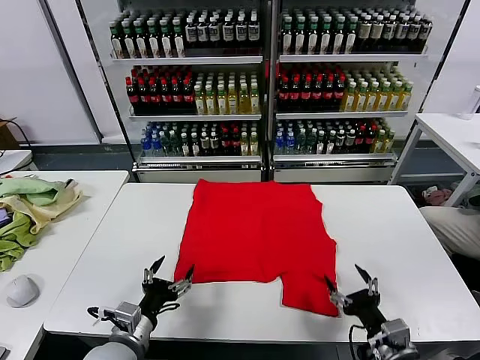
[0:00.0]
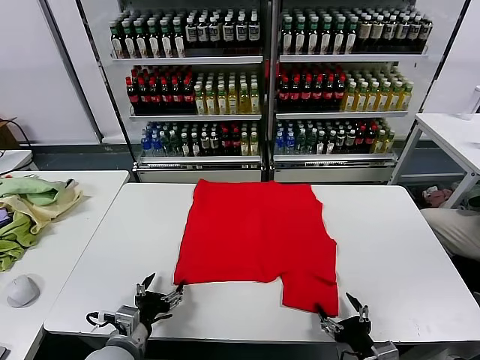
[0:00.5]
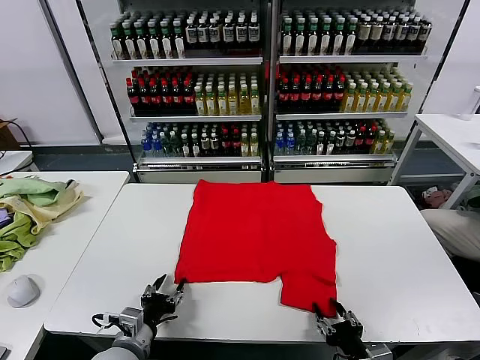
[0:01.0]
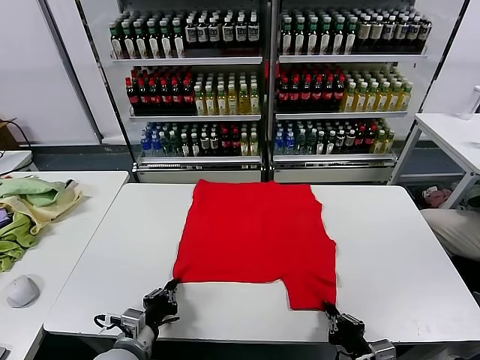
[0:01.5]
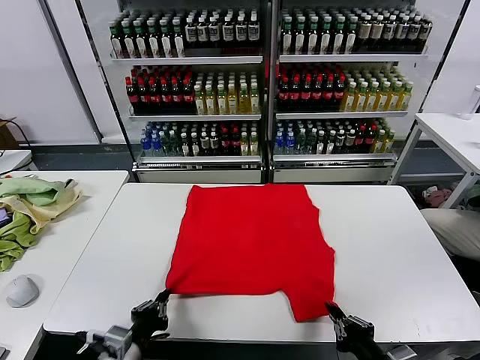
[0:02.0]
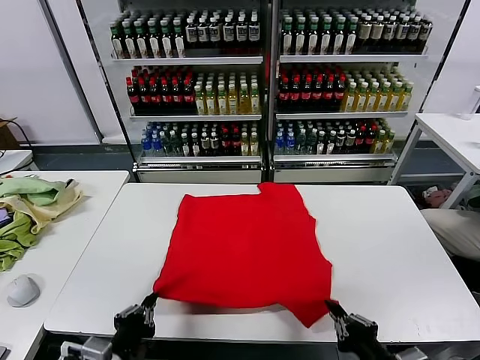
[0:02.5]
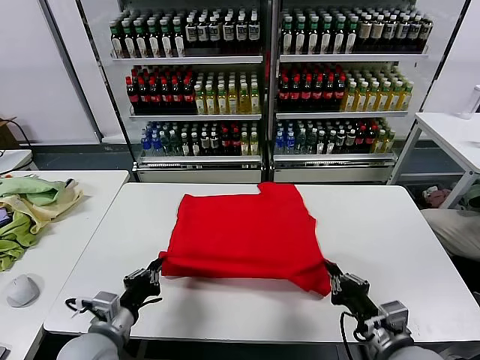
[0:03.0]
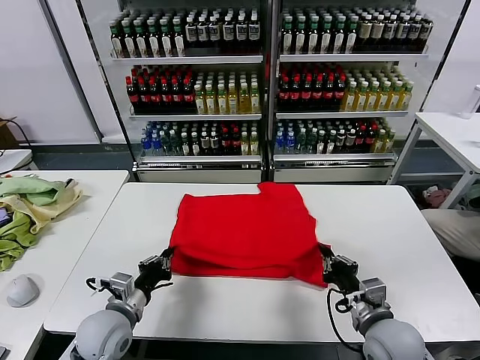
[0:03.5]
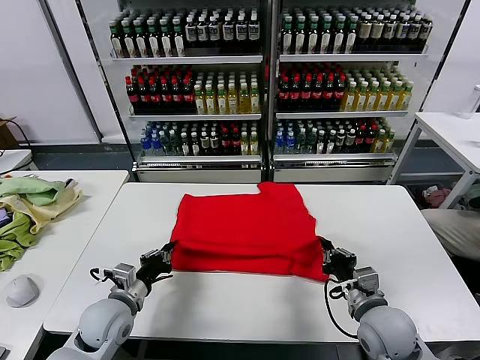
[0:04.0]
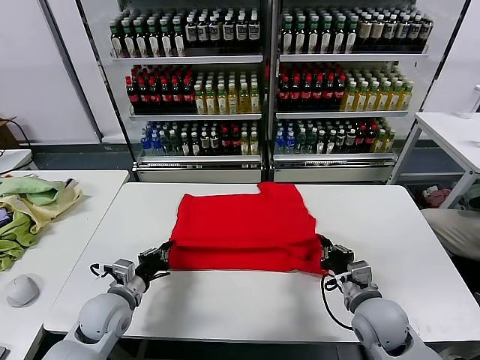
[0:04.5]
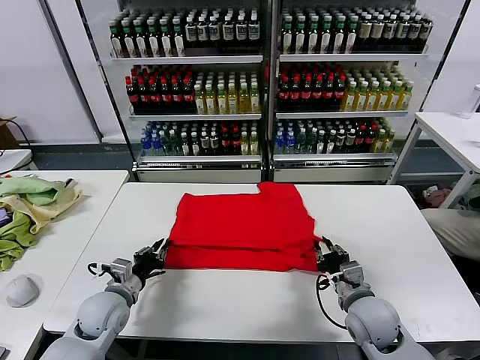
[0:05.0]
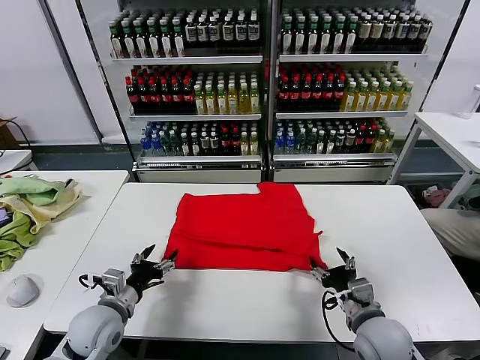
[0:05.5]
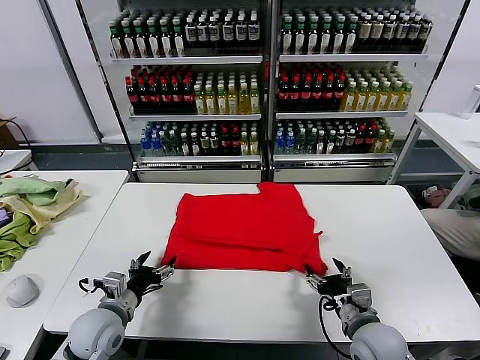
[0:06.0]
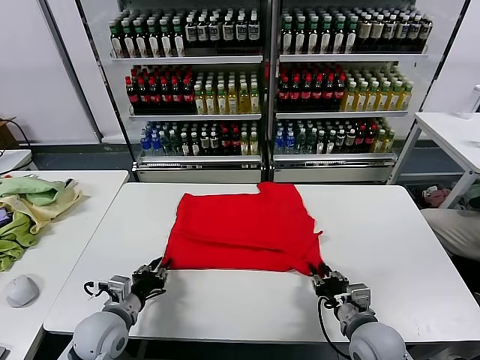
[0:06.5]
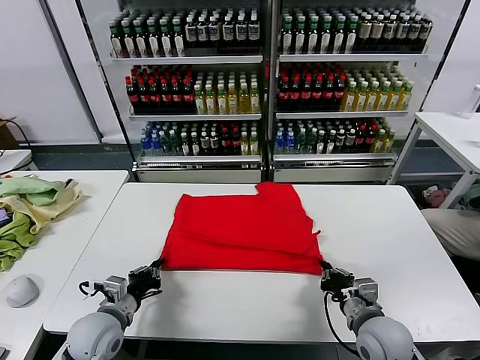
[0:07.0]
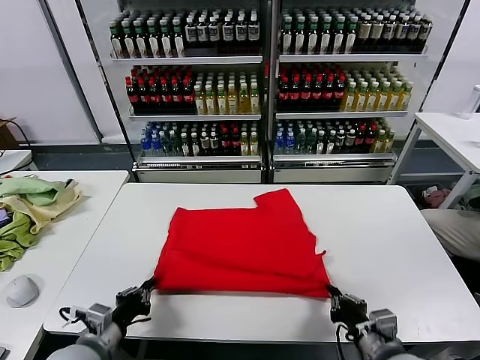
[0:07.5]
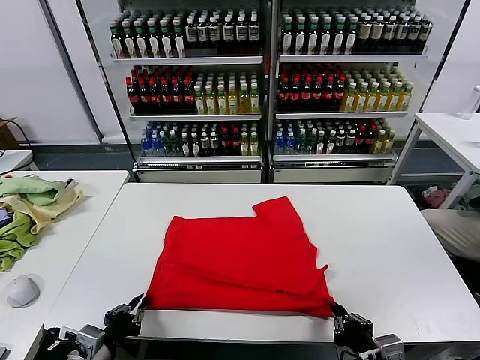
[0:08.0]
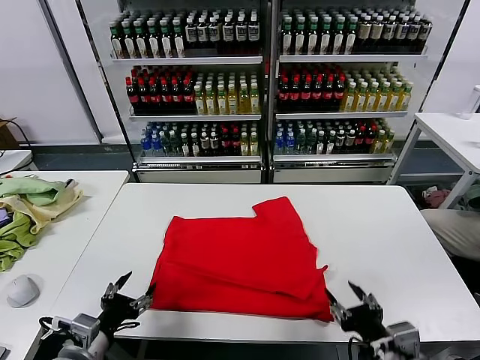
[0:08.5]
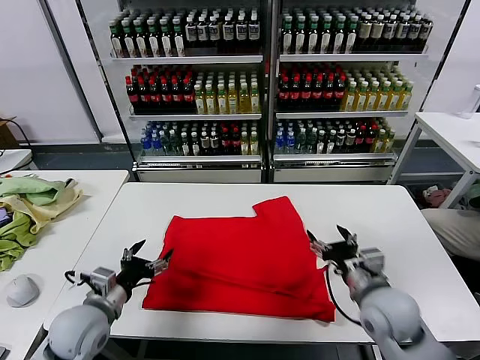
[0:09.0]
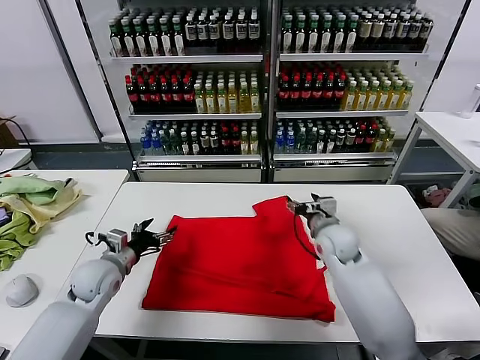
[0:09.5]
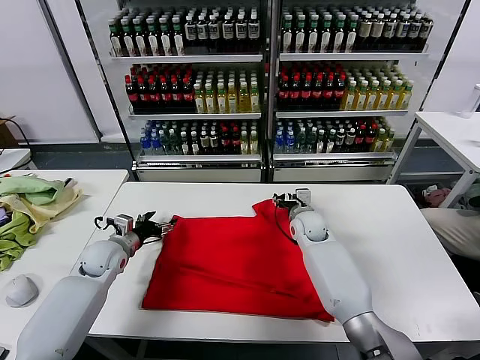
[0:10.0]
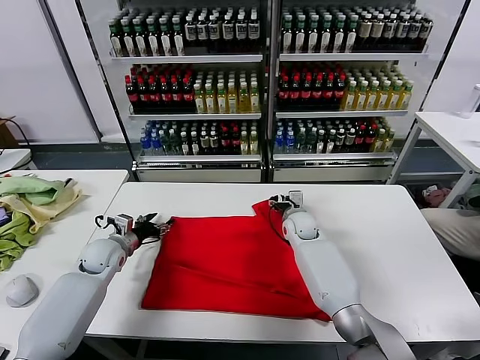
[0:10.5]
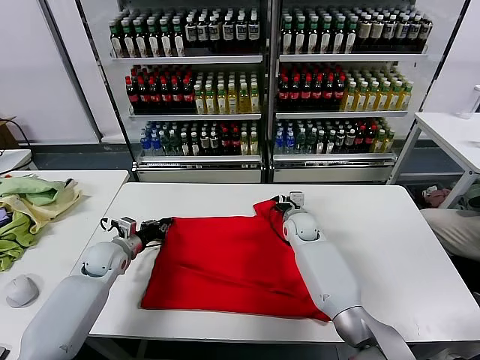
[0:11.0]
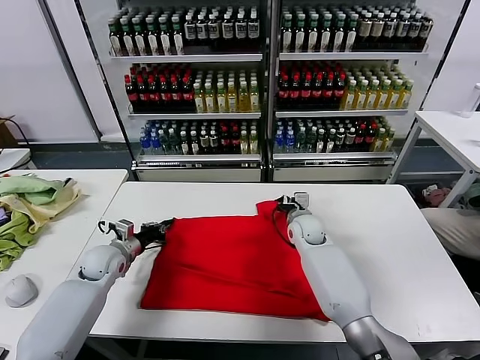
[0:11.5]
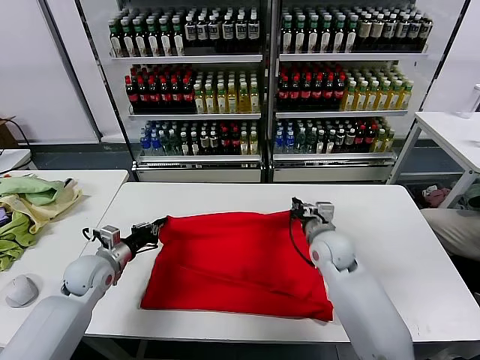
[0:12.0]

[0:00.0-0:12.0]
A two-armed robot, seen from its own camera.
Task of the whole recording: fold and organize the clothes.
Step, 0:00.0 to 0:01.5: use both grippers simultaneously to clamp the lower edge of the clothing fabric.
Step, 0:02.0 to 0:05.0: use both grippers to drag the lower edge of the fabric forward and fold it over the upper edge.
Step, 0:05.5 to 0:08.0: Drag the clothes downward with both gripper.
Step, 0:08.5 to 0:11.0: use both grippers simultaneously to clamp the upper edge of the clothing fabric.
0:02.0 to 0:04.0: Both grippers move forward, roughly 15 cm.
0:04.0 to 0:06.0: The right gripper opens its fingers. The left gripper opens.
0:06.0 to 0:08.0: The two grippers go approximately 10 cm backward. The left gripper closes up. Meanwhile the right gripper closes up.
0:08.0 to 0:10.0: Both grippers travel together forward, about 35 cm. The right gripper opens, while the left gripper opens.
0:10.0 to 0:12.0: The right gripper heads backward, covering approximately 15 cm, and closes its fingers. The left gripper heads backward, covering approximately 5 cm, and closes up.

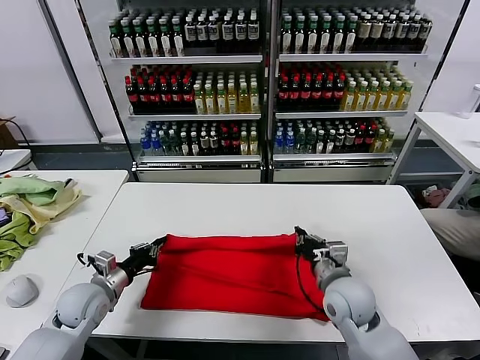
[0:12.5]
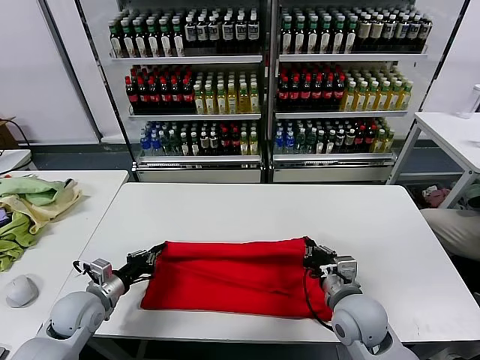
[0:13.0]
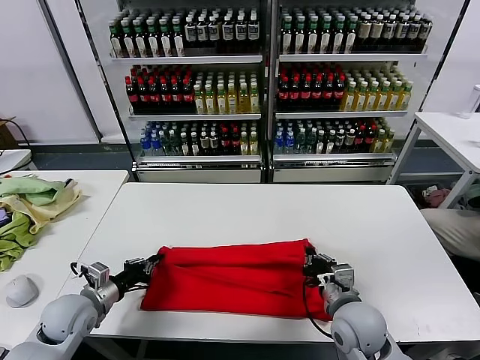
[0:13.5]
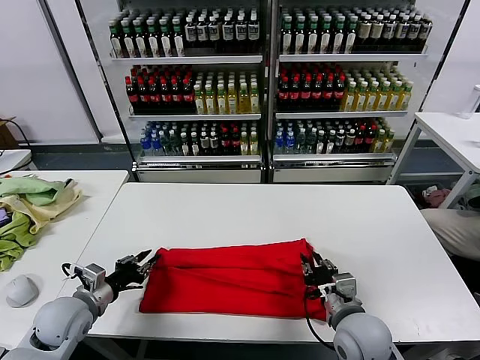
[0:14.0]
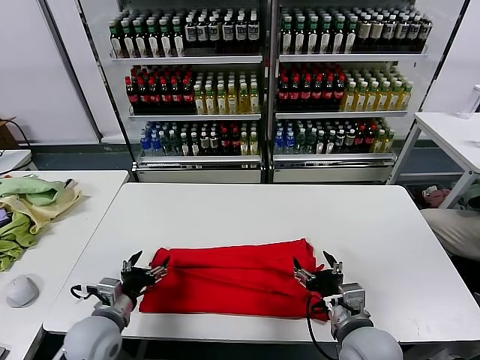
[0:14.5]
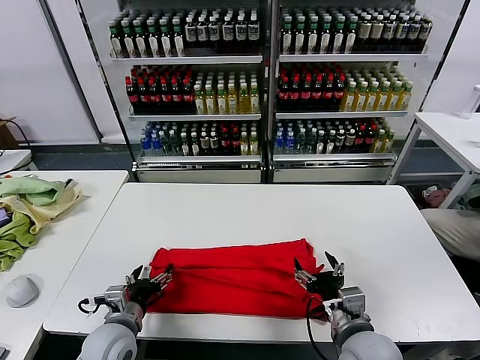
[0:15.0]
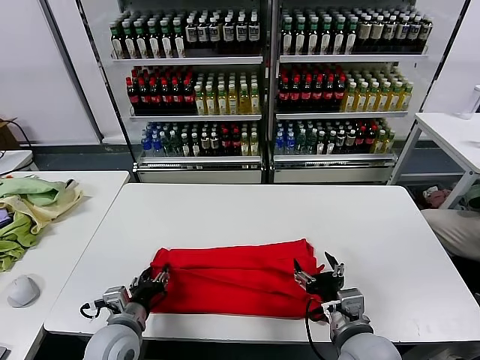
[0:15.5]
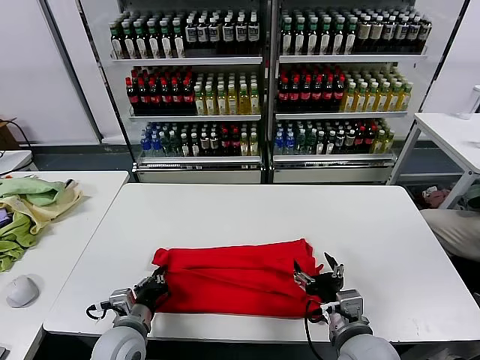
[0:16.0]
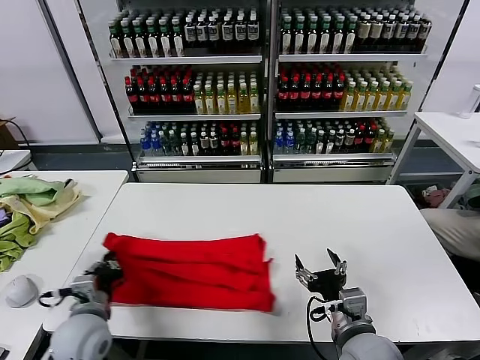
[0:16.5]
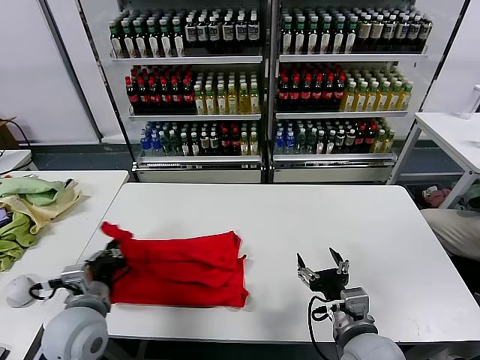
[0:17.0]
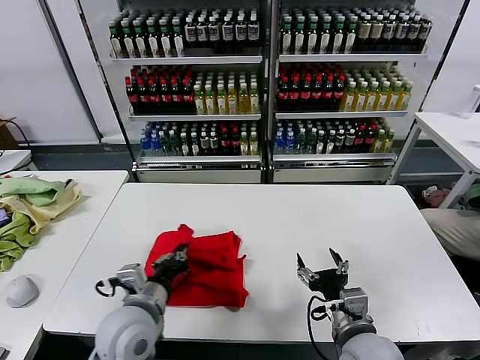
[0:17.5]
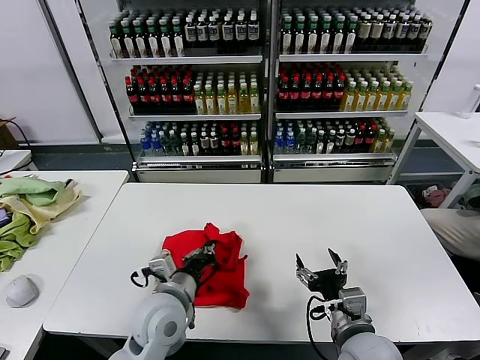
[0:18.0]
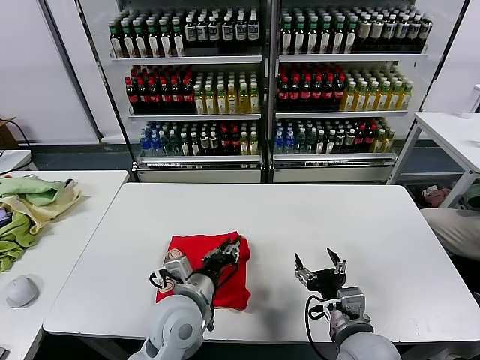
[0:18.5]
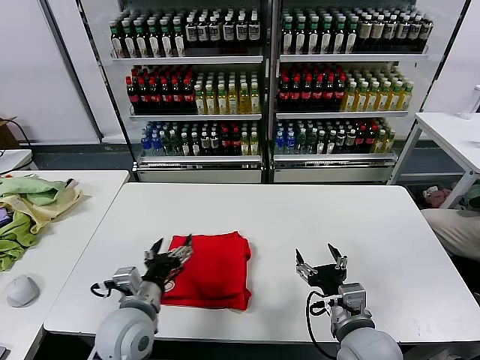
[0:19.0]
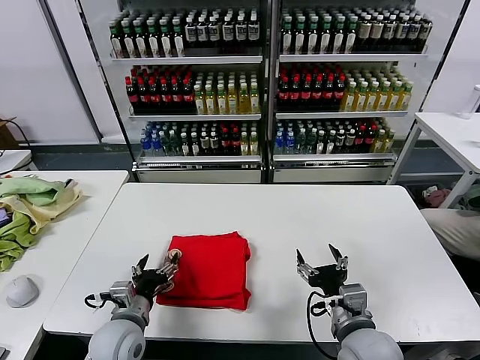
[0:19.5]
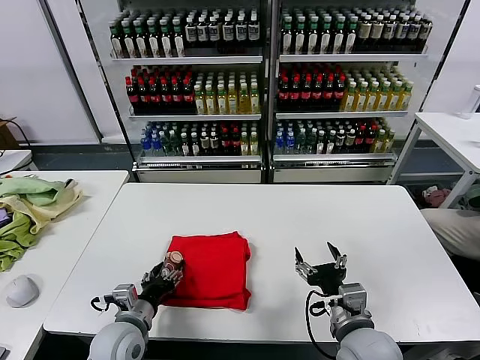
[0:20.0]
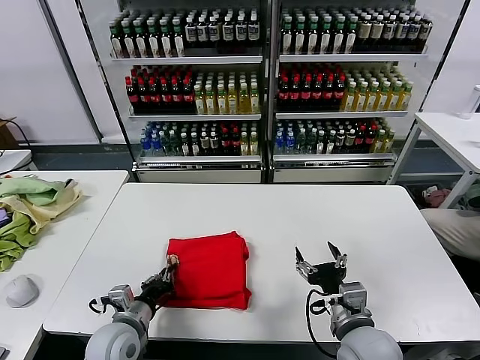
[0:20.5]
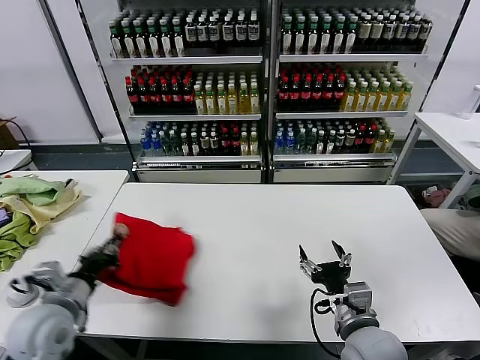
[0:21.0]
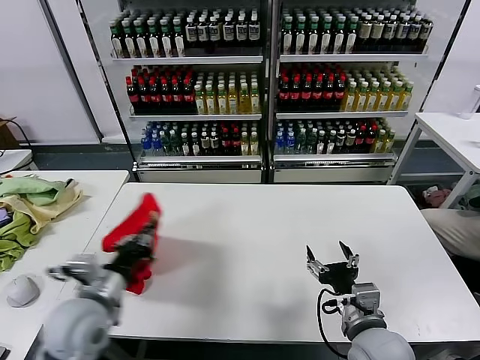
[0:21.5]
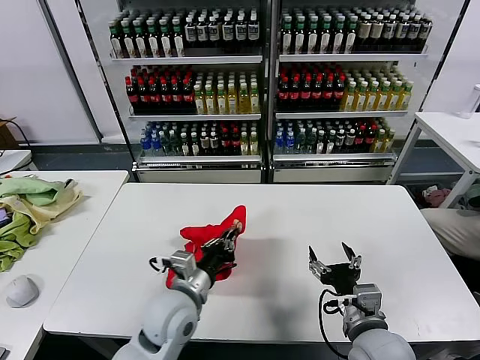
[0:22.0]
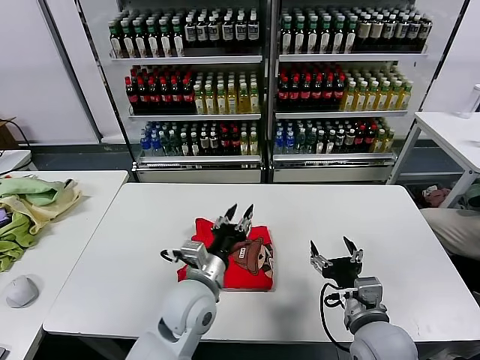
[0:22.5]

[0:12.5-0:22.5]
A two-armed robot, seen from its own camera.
Task of the whole recording: fold and organize the clothes.
Step, 0:12.5 to 0:14.0: use both grippers to drag the upper edge of the fabric backward and fold it over the lower edge.
Step, 0:14.5 to 0:15.5: use the left gripper to clamp the left edge of the fabric.
Step, 0:16.5 to 0:18.5: use the left gripper to drag the left edge of the fabric to the left and folds it over the right edge.
Step, 0:19.0 to 0:22.5: Flip the folded clothes over with left gripper.
0:12.5 to 0:14.5: The right gripper moves backward, some 10 cm, and opens its fingers. Meanwhile the left gripper goes about 10 cm backward and to the right, and opens.
0:14.5 to 0:16.5: The left gripper closes.
0:16.5 to 0:18.5: The left gripper travels to the right by some 20 cm, and opens.
0:18.5 to 0:20.5: The left gripper moves to the left and downward, roughly 15 cm, and opens and closes again.
0:20.5 to 0:22.5: The left gripper goes approximately 20 cm to the right and upward.

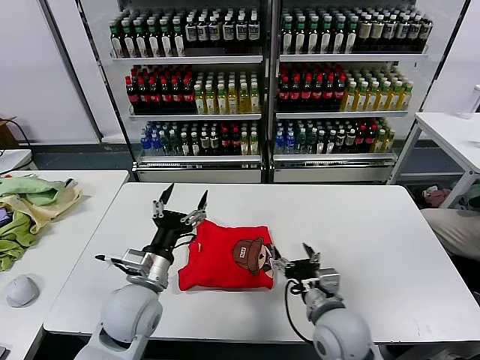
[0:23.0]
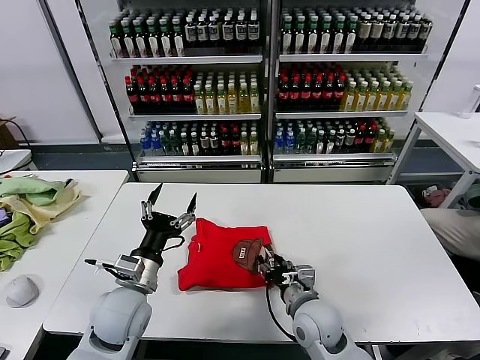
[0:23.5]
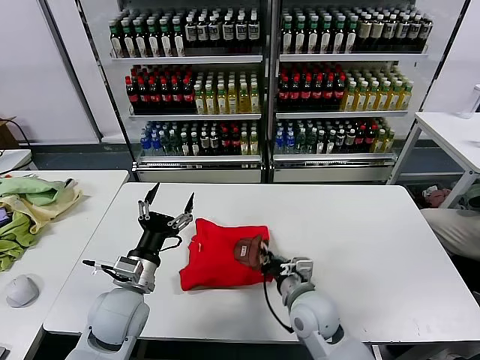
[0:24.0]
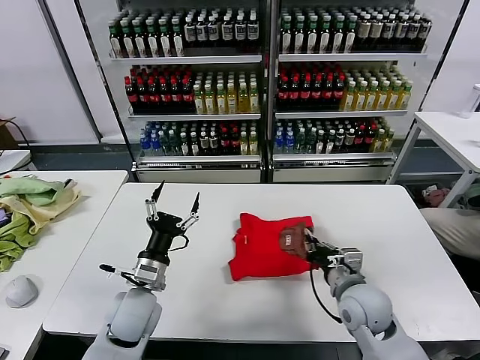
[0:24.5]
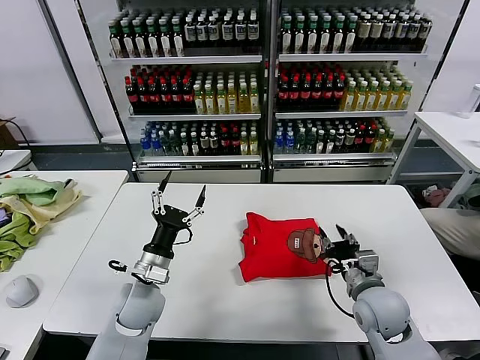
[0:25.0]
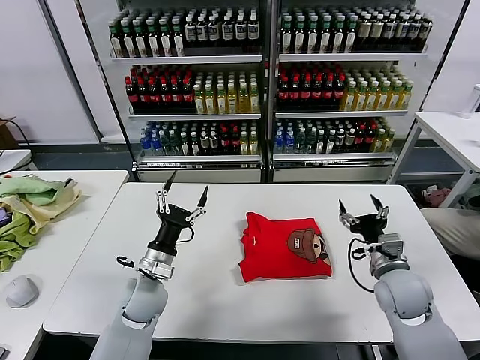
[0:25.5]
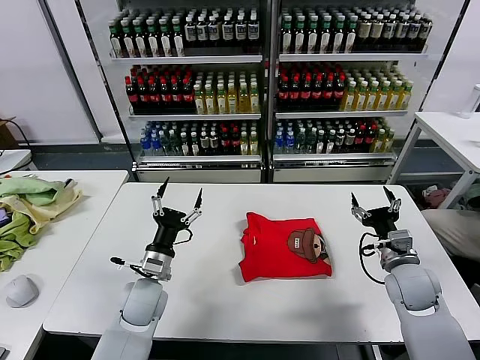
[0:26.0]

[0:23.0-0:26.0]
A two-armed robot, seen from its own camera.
Task of the whole recording: fold and organize the clothes.
Step, 0:23.0 to 0:24.5: Drag the clothes to the center of the table.
0:23.0 to 0:24.5: The right gripper heads forward, covering approximately 5 cm, and closes up.
0:24.5 to 0:26.0: The left gripper shifts by approximately 5 cm, while the right gripper goes approximately 10 cm to the right, and opens.
